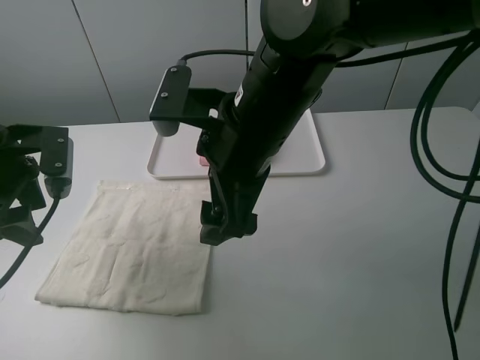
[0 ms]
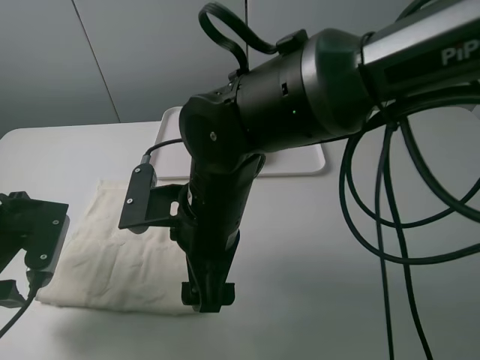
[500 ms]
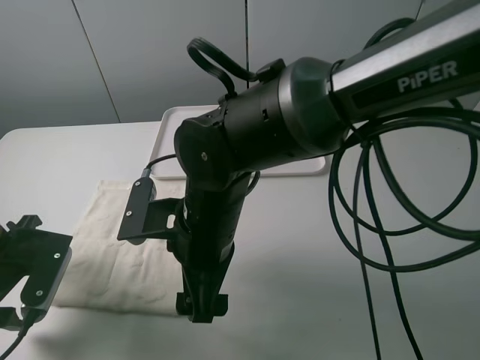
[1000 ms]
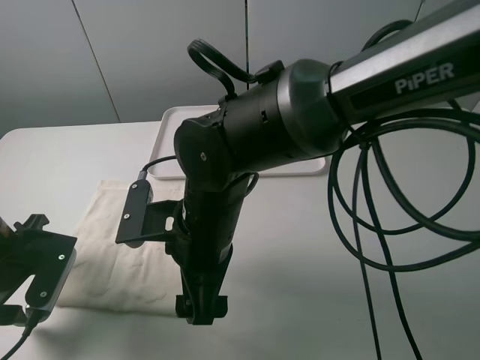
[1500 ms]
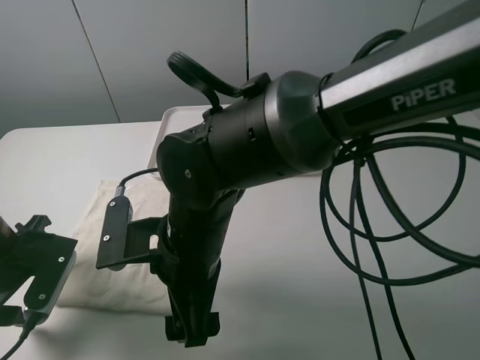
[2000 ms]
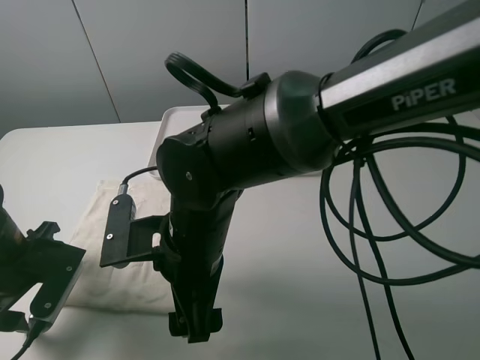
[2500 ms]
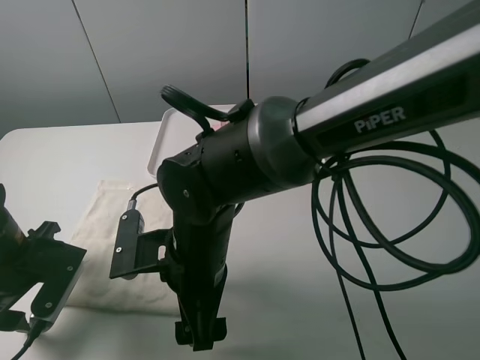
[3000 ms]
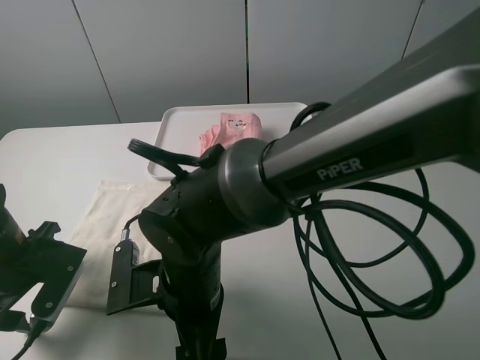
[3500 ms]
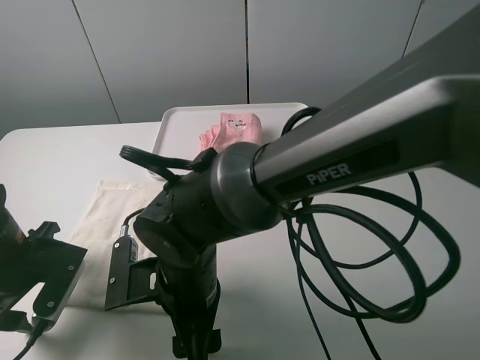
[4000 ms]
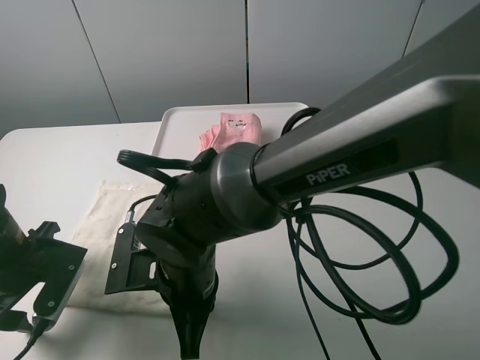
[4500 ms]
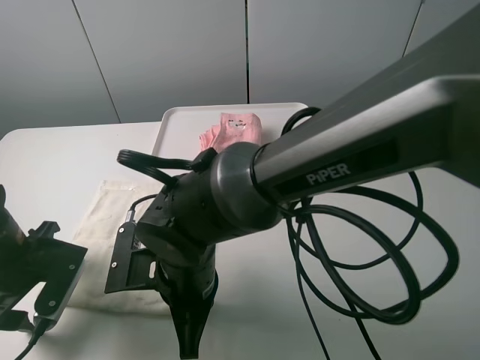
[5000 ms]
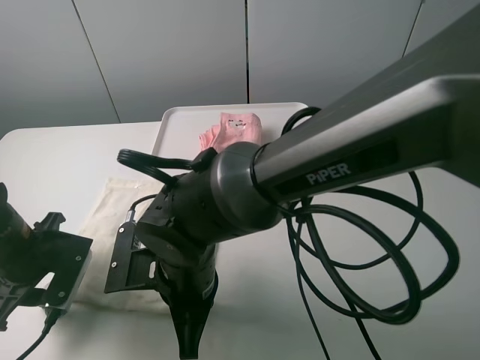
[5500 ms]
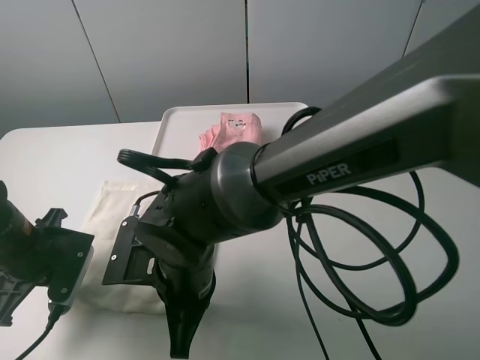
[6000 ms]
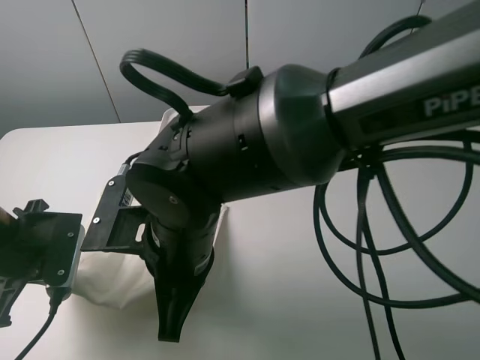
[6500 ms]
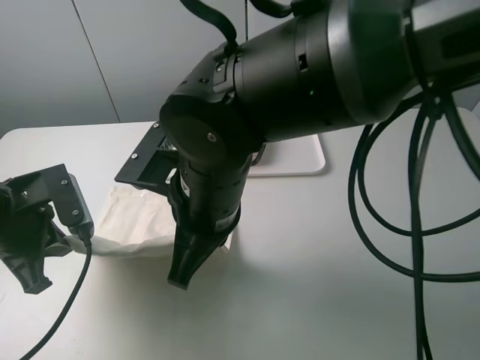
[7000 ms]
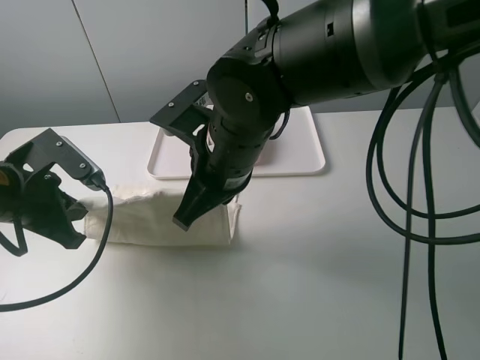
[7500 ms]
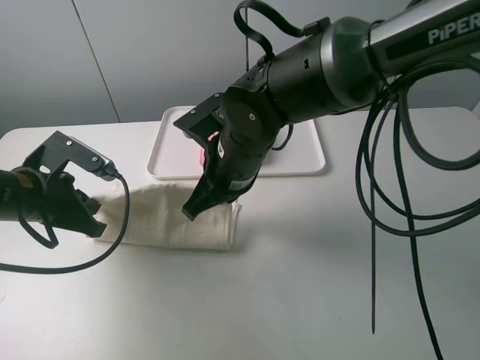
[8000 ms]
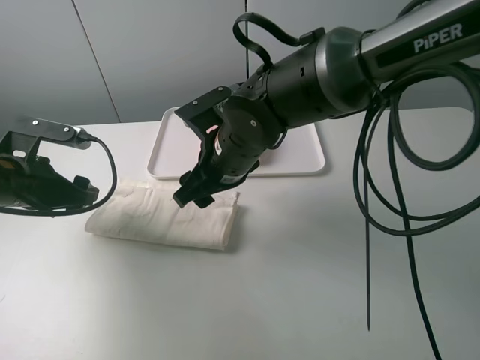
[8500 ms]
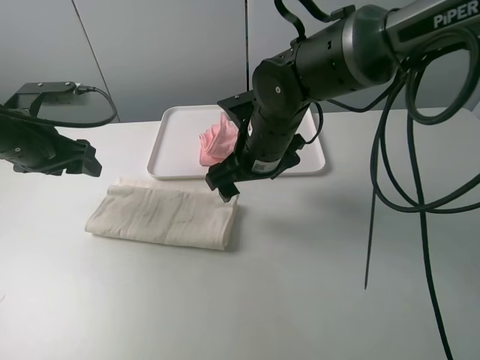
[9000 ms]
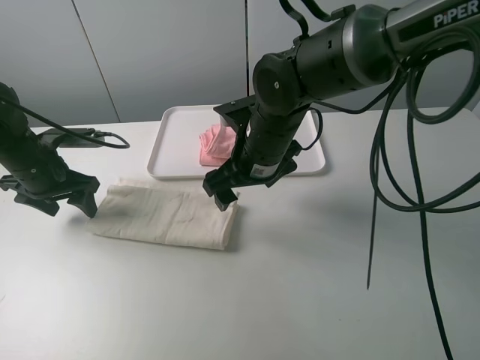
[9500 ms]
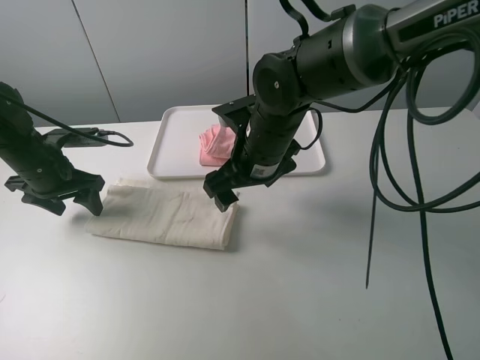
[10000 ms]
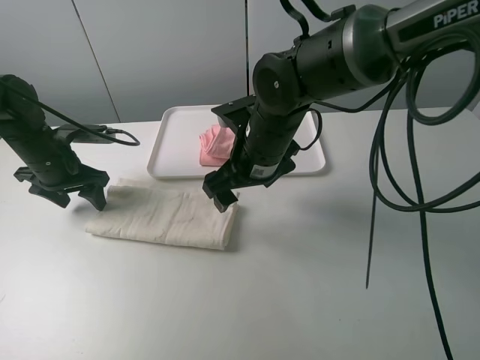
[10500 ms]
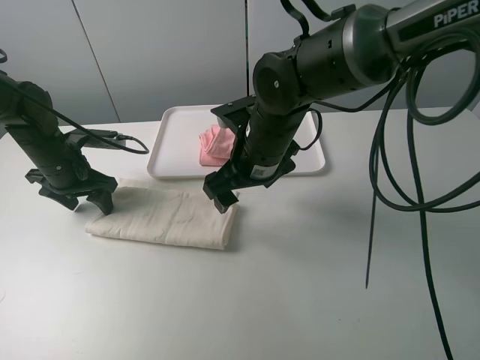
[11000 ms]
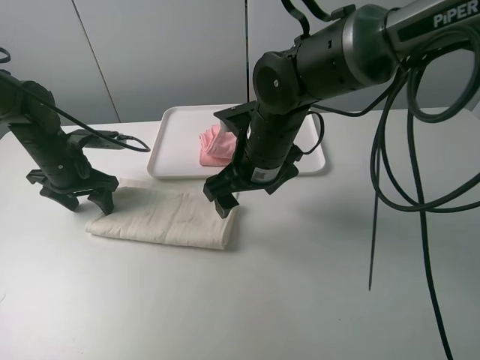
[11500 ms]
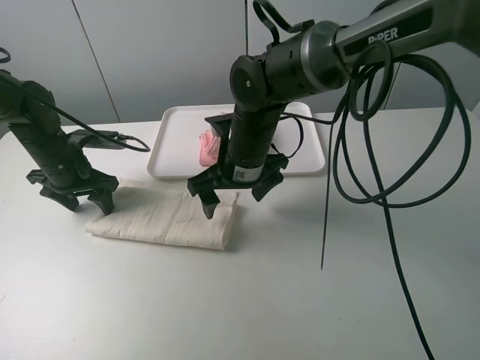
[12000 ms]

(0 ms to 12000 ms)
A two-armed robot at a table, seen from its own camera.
Task of the whole recording: fold one of the towels by two grippers and place it on the tray,then fold another towel by two grippers and place it on the folded towel.
Step, 0 ms - 5500 ms: Grasp the white towel with the left gripper.
Step, 6000 ms - 8500 ms: Fold the white towel upwards with the left gripper.
Step, 9000 ms - 11500 ms: Press the white towel with the left gripper.
0 ms - 2000 ms: The right gripper goes about 10 cm downward and to the left, while the left gripper heads downward and backward, covering approximately 10 cm.
2000 ms - 4000 ms: The right gripper moves roughly 5 cm.
4000 ms - 6000 ms: The right gripper closes its fingers; the left gripper closes up.
6000 ms - 8000 ms: The left gripper changes place by about 5 cm. Meanwhile the right gripper is displaced forward, upward and to the right by about 15 cm.
8000 ms - 10000 ms: The right gripper opens its fingers; the left gripper shifts about 10 cm forward, and opens its fingers.

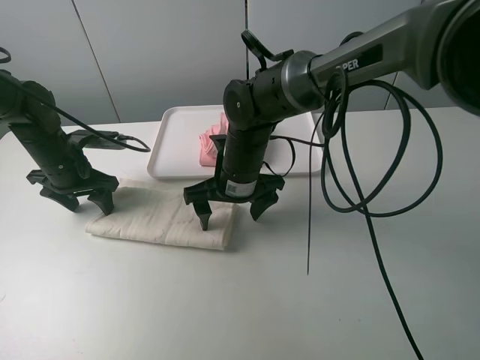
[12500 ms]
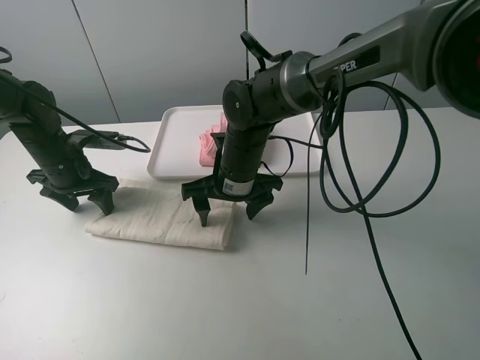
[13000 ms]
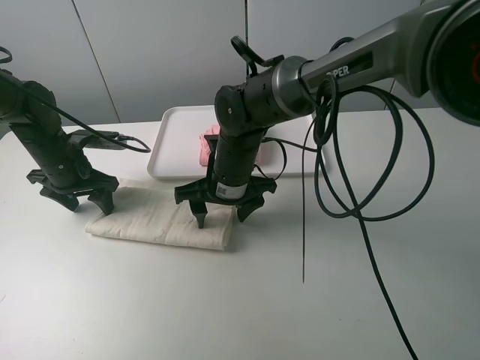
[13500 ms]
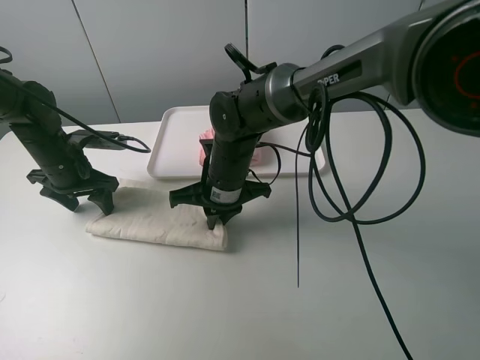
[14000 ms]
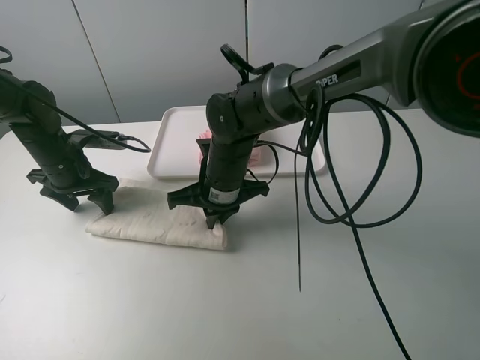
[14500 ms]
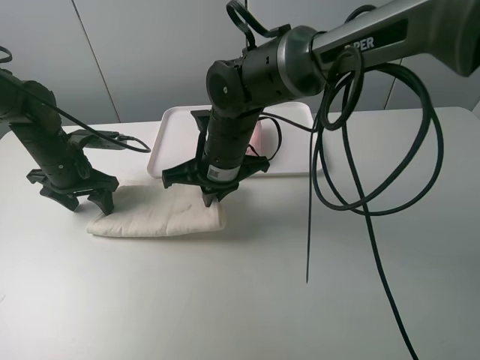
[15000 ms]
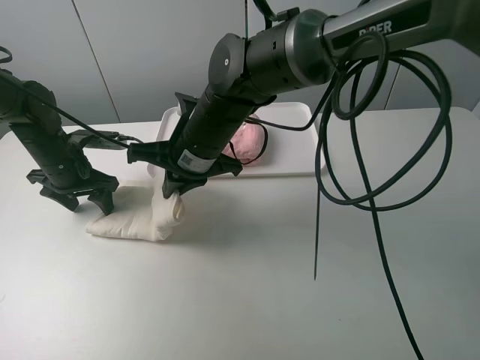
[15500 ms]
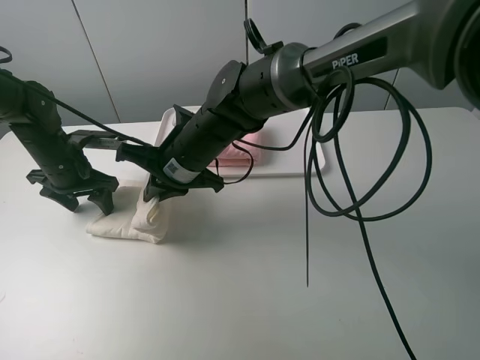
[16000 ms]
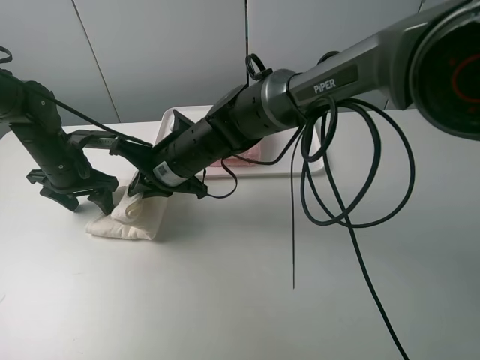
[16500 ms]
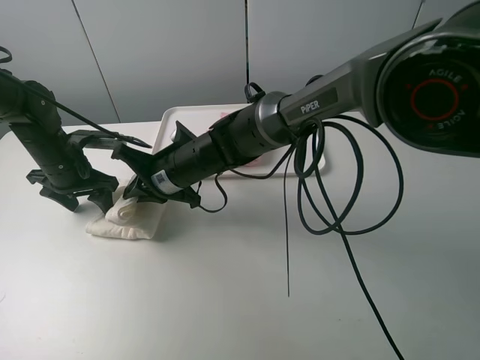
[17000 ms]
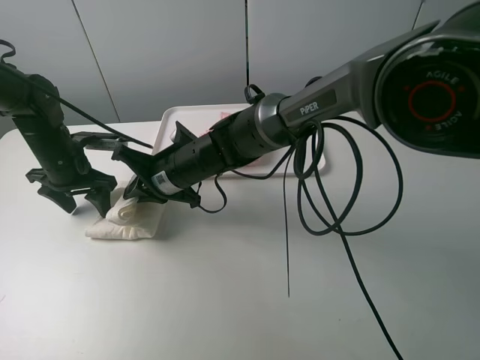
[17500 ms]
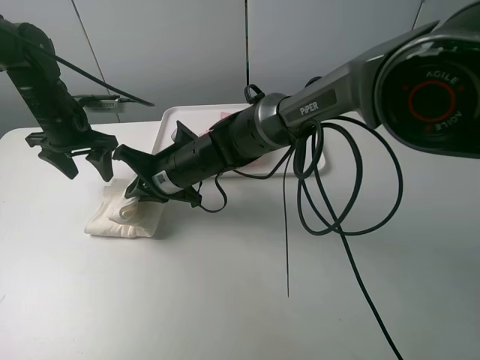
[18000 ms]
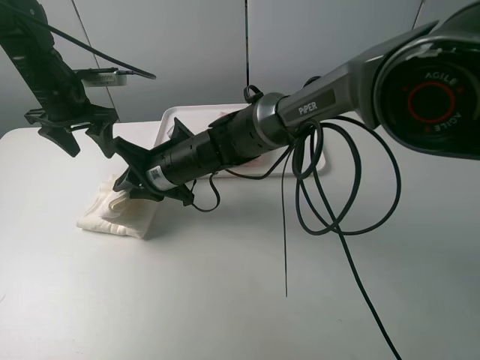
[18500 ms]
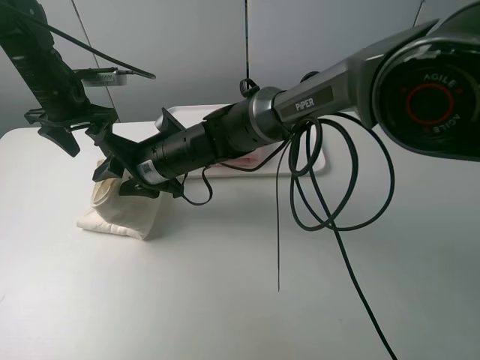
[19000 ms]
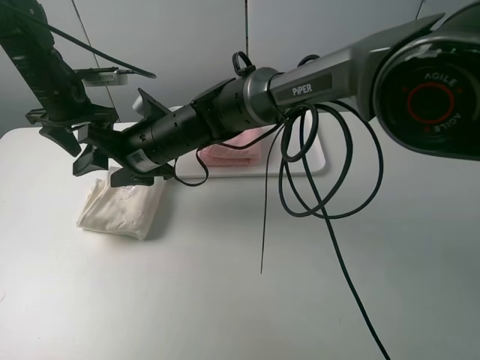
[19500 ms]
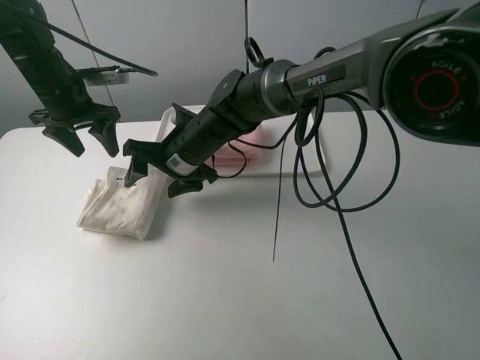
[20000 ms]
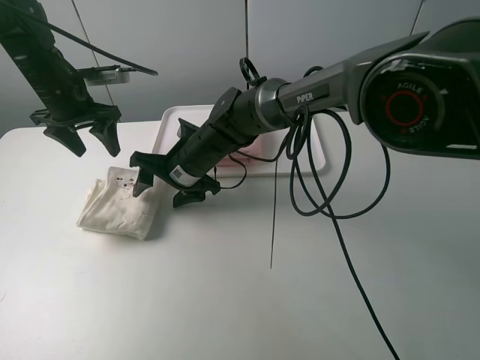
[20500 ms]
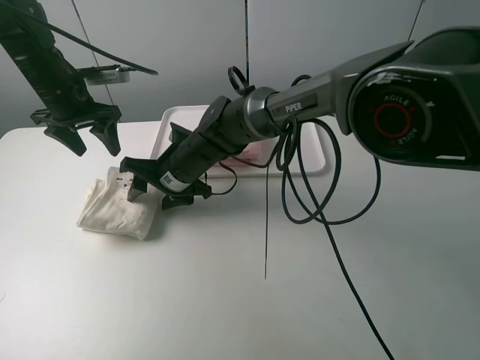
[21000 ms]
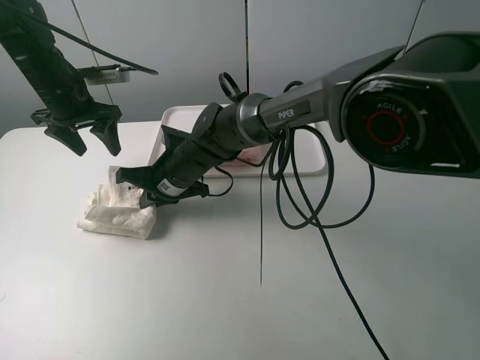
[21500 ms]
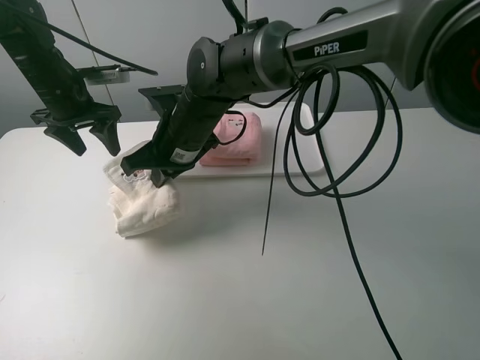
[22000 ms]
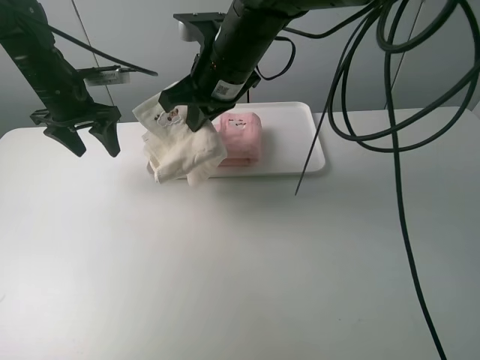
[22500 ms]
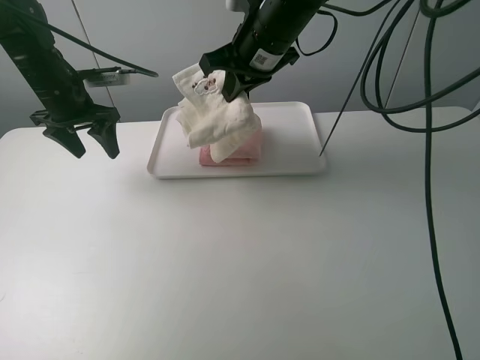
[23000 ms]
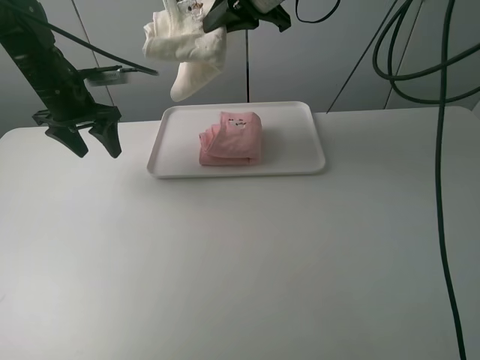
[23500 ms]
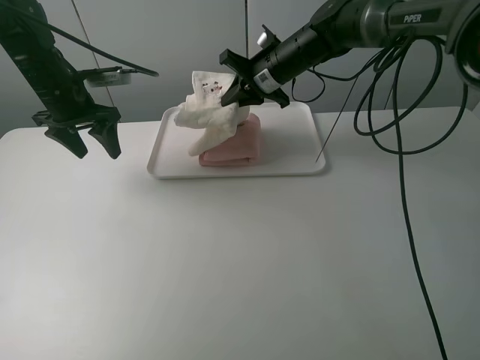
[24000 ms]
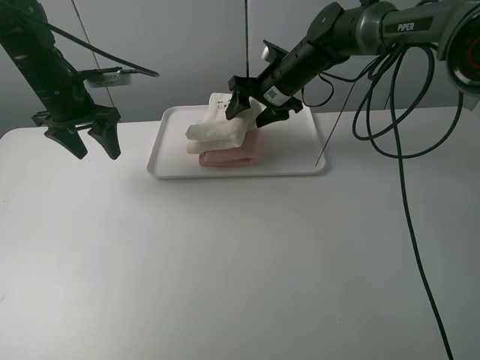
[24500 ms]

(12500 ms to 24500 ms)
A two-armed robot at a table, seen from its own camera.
Task of the whole recording: fold one of the towels by two grippers and place it on the tray,then fold another towel by two grippers and place it on the folded towel.
Step, 12500 ms - 14000 ms: Grasp the white towel with the right gripper.
Step, 14500 ms - 19500 ms: Fold the white towel from right to left with right gripper.
Step, 20000 ms - 21000 ms: Grasp the white towel with the right gripper.
12500 ms - 14500 ms: The right gripper closes.
14500 ms - 16500 ms: The right gripper is displaced to the left by roughly 5 cm.
16500 ms - 18500 ms: The left gripper shifts roughly 10 cm upward and forward.
18500 ms - 20500 ms: The right gripper opens its fingers.
20500 ms - 22500 ms: The right gripper moves upward, approximately 15 cm, and closes up.
22500 ms - 24500 ms: The right gripper is displaced forward, downward and to the right by about 20 cm, and opens its fingers.

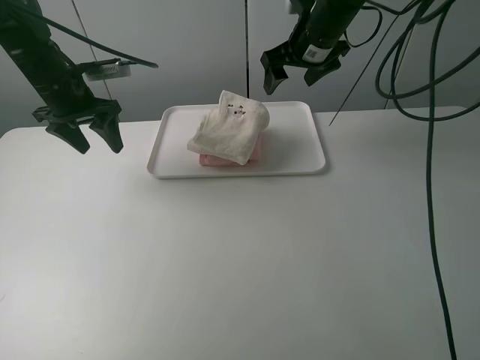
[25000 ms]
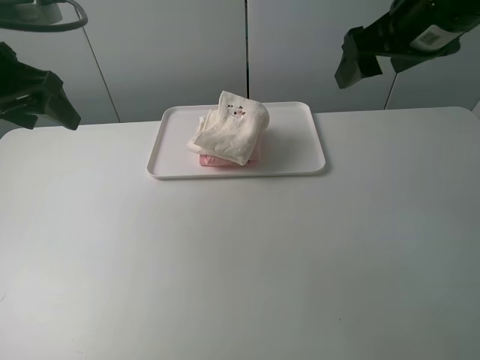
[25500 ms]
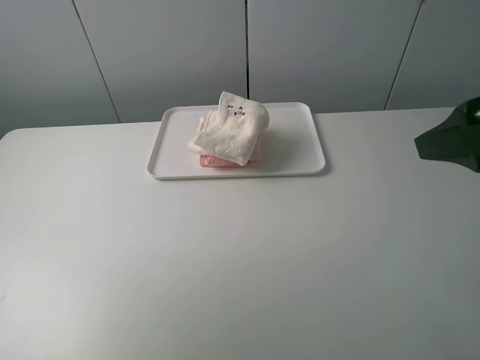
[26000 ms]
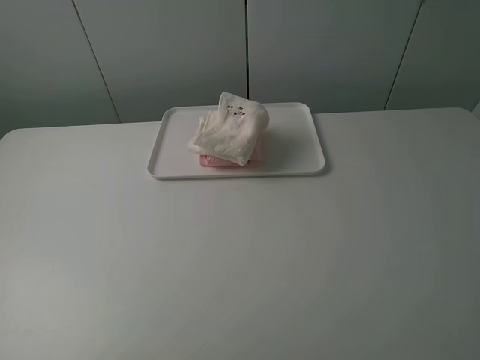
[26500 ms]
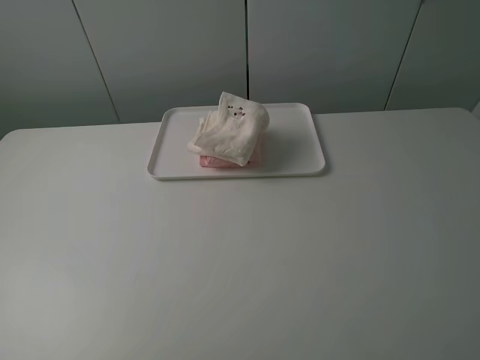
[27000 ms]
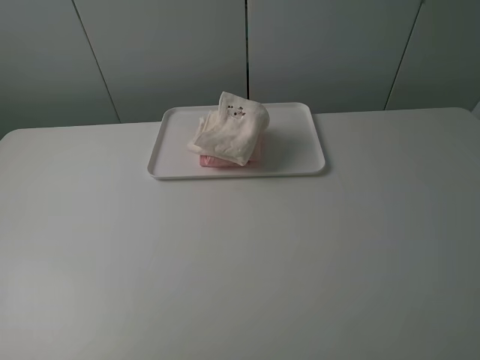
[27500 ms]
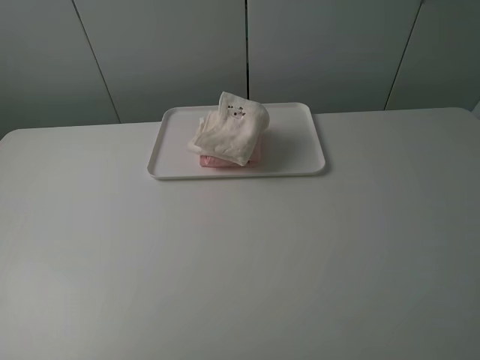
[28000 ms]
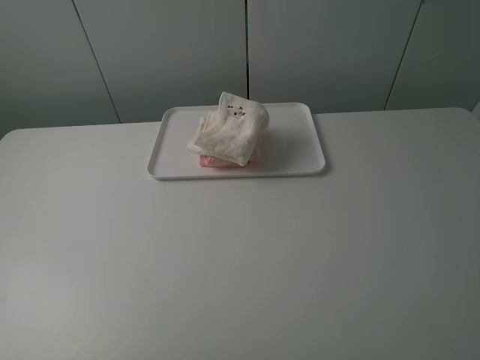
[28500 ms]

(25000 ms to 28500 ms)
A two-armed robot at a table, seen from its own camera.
Task of the whole recording: fold one of the towels by two grippers and place it on the tray,then fold another towel by two grippers and place it on the folded towel.
25000 ms - 27000 ms: The grippers both shift backward by some 50 cm.
